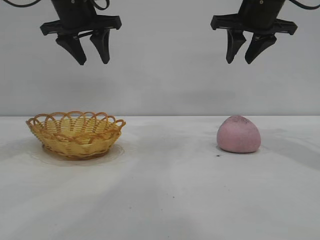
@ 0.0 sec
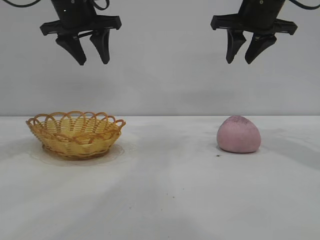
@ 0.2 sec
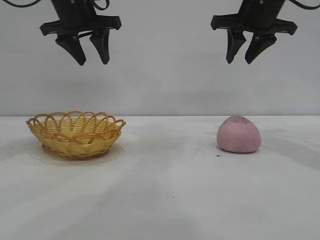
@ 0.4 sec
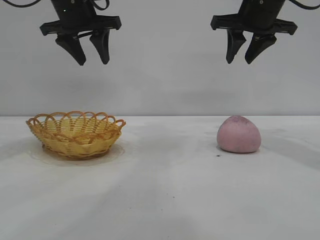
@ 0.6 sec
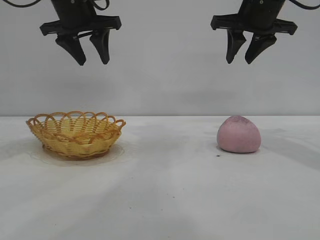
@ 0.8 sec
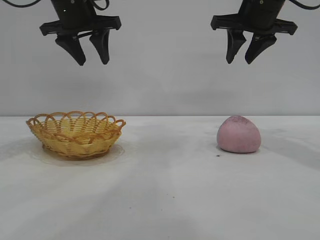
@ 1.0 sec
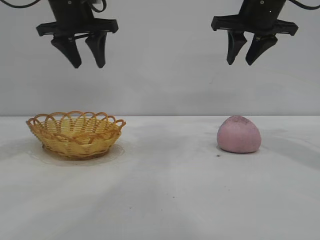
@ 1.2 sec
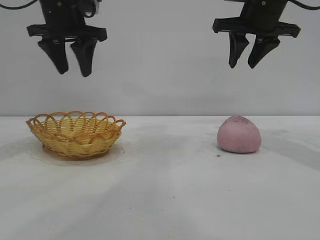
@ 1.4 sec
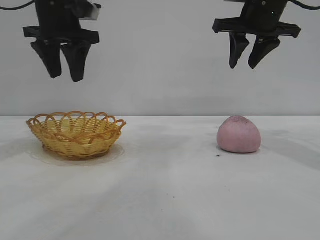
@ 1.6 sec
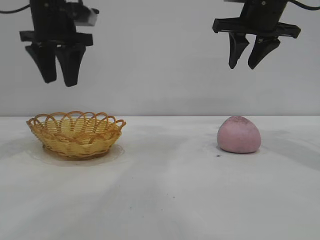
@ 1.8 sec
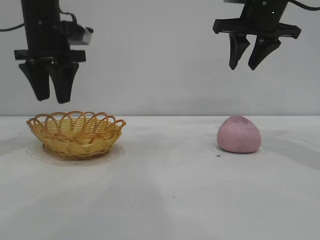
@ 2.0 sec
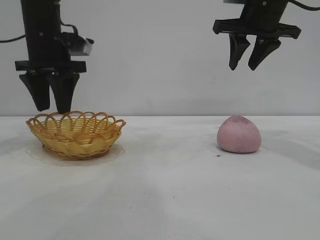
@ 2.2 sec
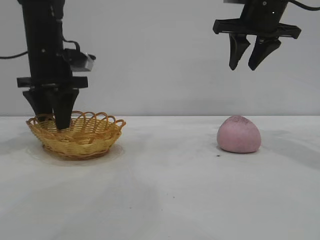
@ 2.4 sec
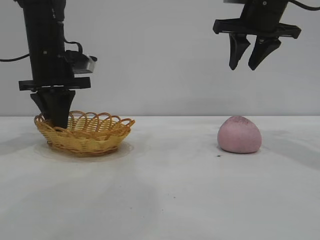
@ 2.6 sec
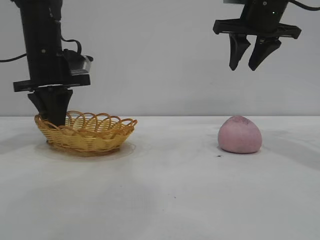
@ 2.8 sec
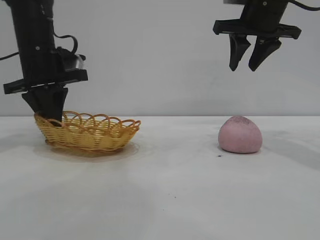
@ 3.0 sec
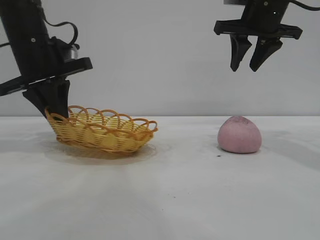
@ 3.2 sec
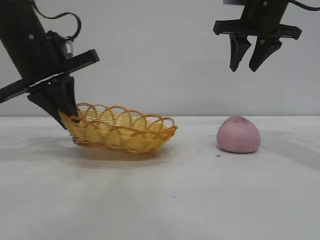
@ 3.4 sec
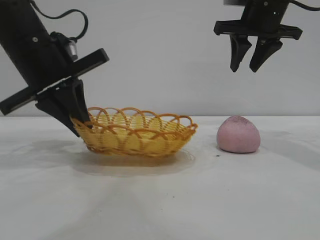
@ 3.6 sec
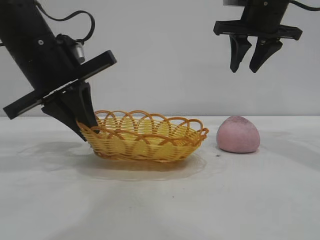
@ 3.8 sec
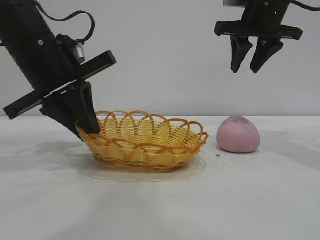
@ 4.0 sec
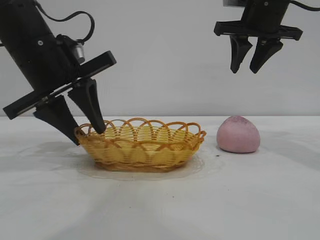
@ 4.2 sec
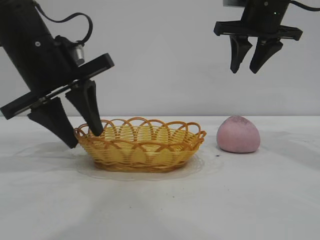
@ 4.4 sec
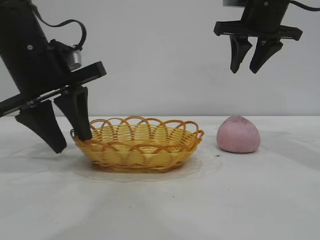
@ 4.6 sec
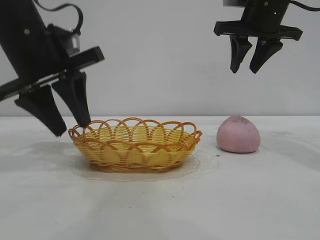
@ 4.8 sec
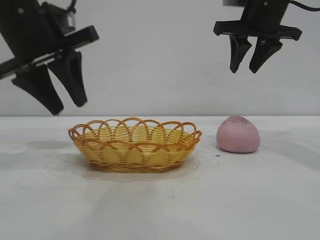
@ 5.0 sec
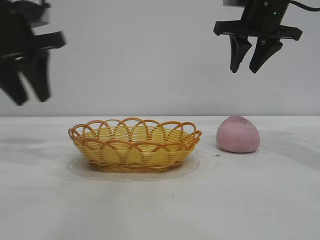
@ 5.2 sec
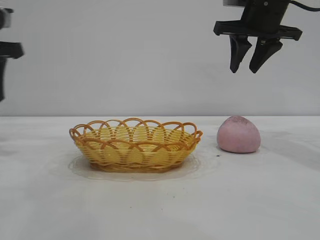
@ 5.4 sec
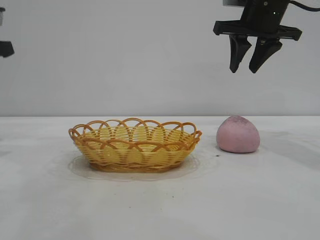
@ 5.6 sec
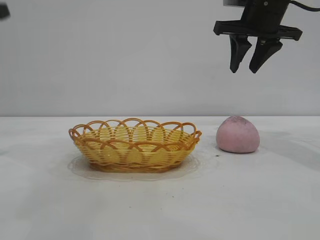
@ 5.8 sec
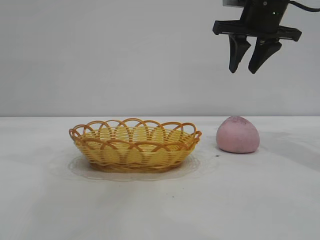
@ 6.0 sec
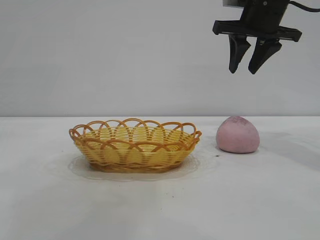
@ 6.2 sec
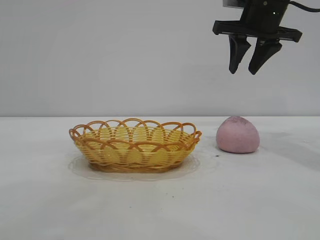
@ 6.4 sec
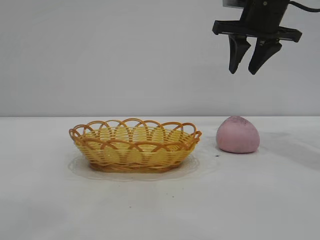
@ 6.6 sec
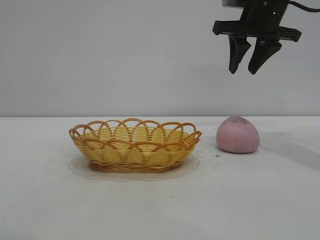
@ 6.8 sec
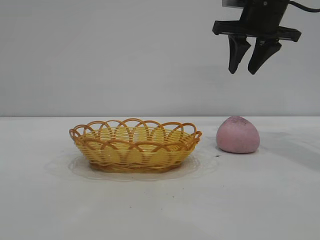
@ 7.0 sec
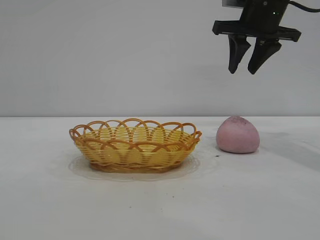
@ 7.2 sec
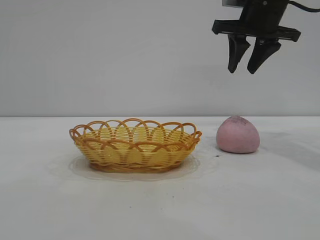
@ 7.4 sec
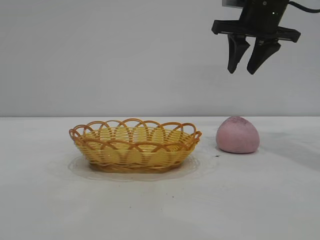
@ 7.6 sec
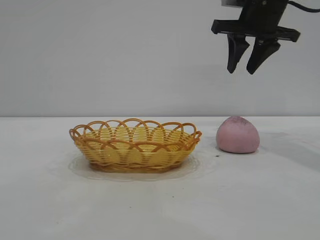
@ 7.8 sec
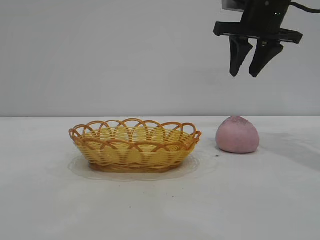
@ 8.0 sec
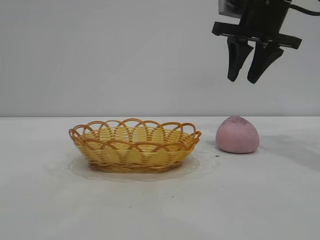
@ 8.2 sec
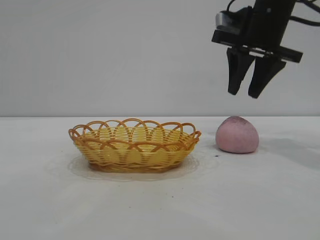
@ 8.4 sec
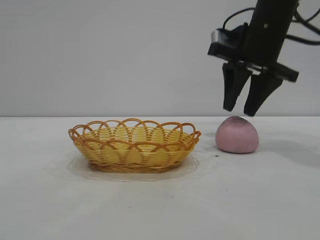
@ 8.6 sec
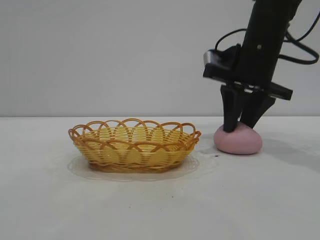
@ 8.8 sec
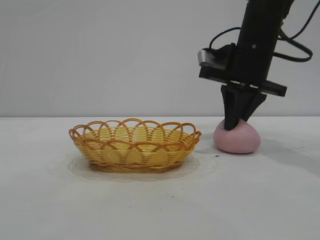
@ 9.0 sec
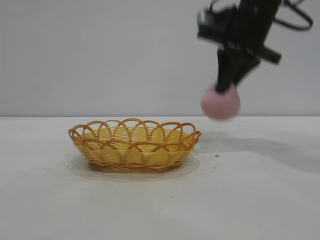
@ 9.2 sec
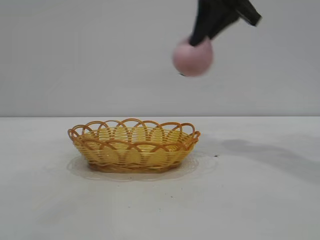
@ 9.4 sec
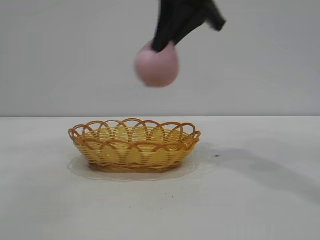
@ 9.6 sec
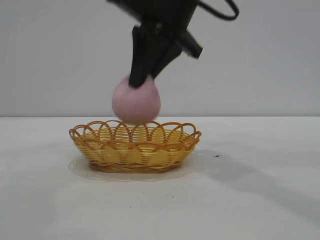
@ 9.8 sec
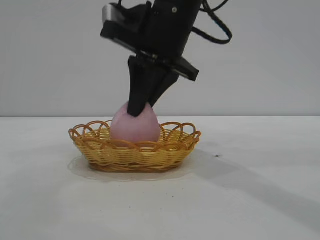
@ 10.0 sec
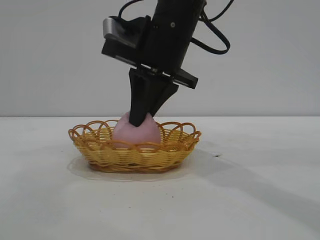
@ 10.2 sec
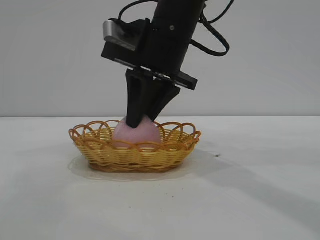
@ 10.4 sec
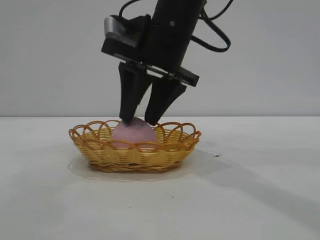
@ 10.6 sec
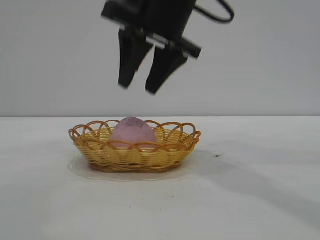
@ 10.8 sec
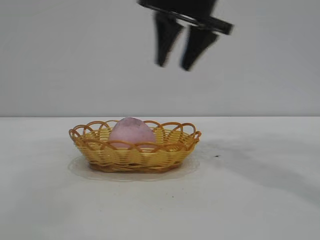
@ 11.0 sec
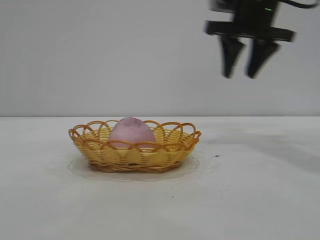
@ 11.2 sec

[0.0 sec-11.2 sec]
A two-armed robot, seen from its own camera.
Task of the whole recording: pick up the peach and put it into the basket.
Step, 0.0 sec to 5.0 sec: Move the basket to the center of view.
Step, 5.2 sec to 9.0 sec: Pick up the peach.
Step, 9.4 sec to 10.8 sec: place the peach into the basket.
